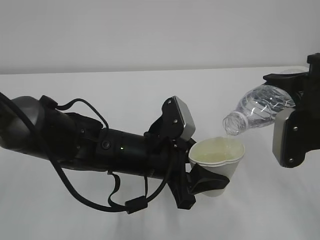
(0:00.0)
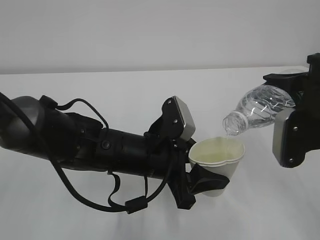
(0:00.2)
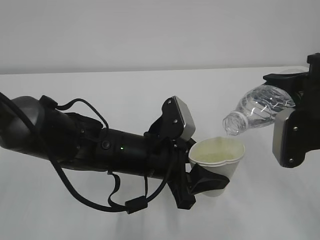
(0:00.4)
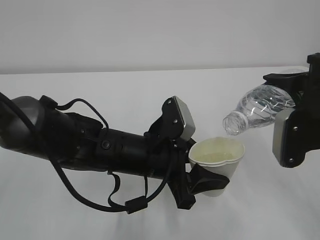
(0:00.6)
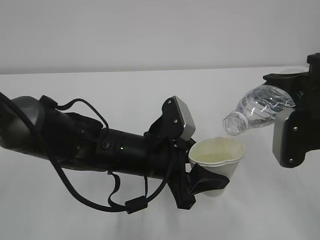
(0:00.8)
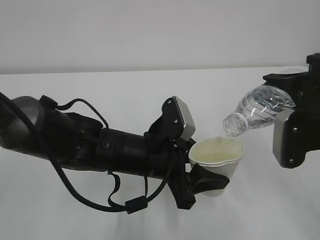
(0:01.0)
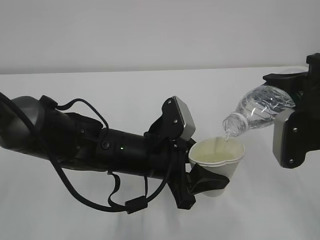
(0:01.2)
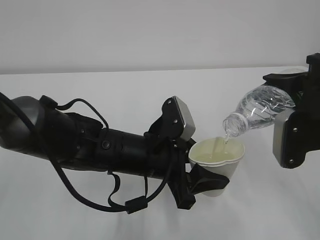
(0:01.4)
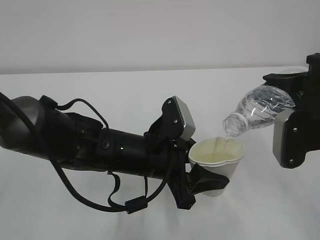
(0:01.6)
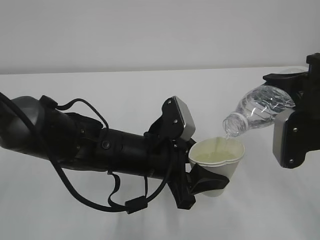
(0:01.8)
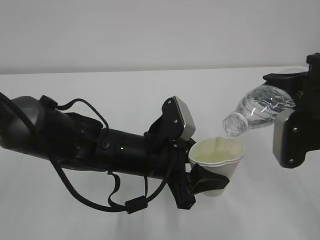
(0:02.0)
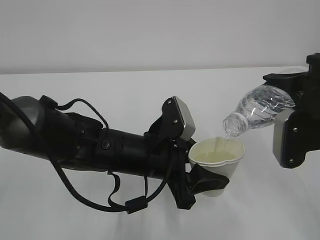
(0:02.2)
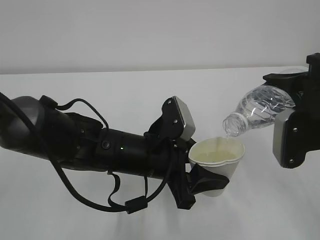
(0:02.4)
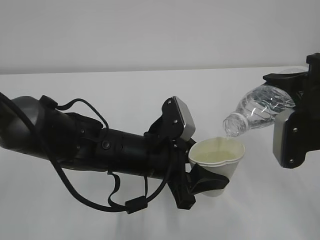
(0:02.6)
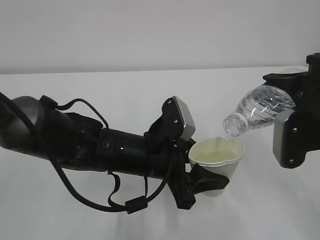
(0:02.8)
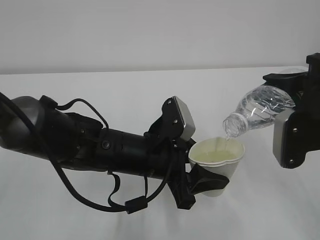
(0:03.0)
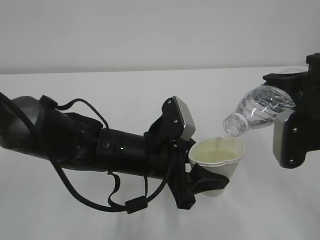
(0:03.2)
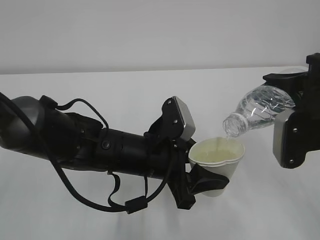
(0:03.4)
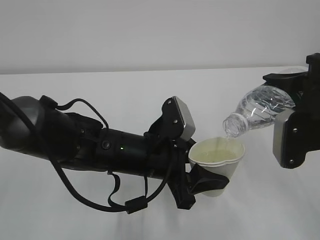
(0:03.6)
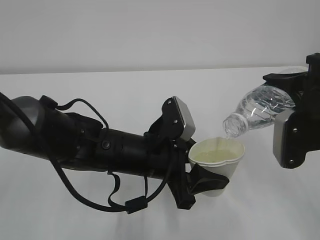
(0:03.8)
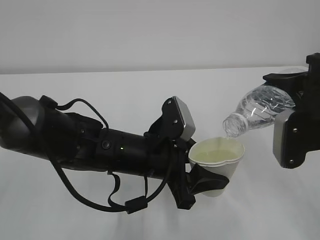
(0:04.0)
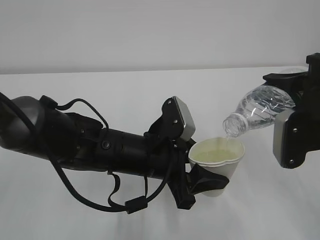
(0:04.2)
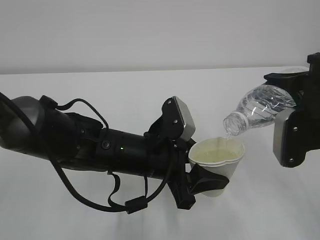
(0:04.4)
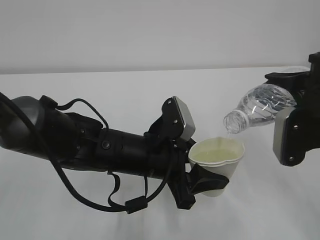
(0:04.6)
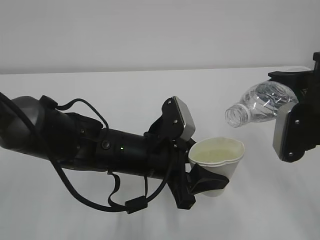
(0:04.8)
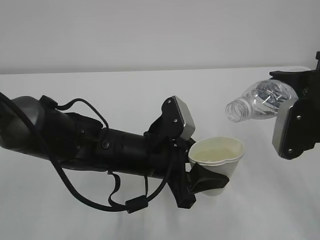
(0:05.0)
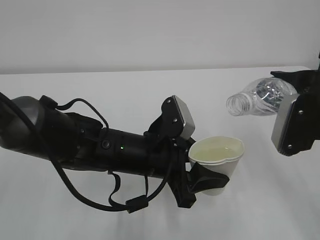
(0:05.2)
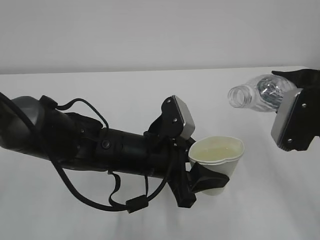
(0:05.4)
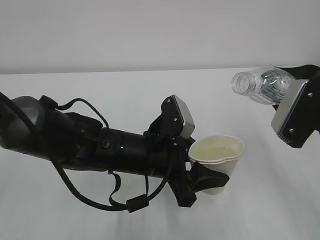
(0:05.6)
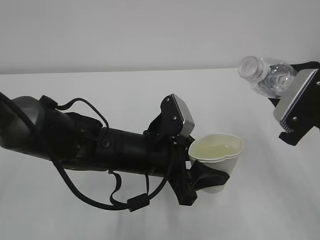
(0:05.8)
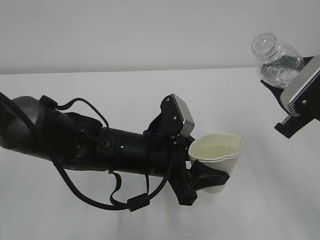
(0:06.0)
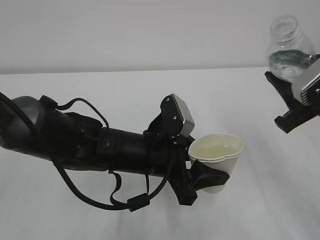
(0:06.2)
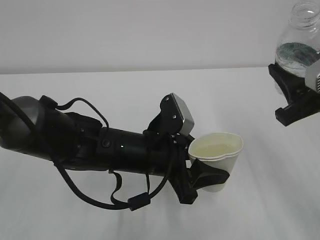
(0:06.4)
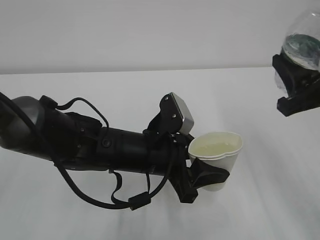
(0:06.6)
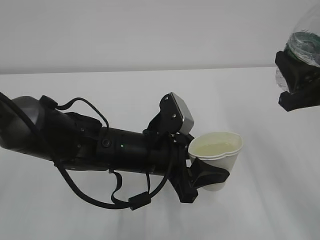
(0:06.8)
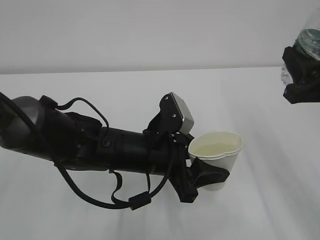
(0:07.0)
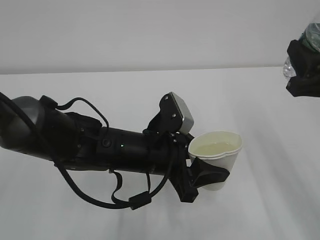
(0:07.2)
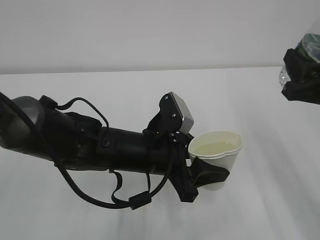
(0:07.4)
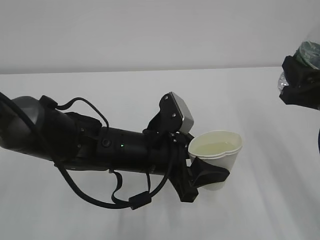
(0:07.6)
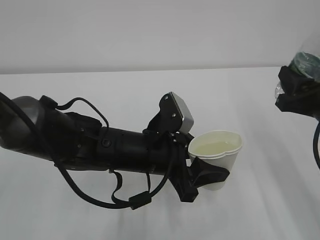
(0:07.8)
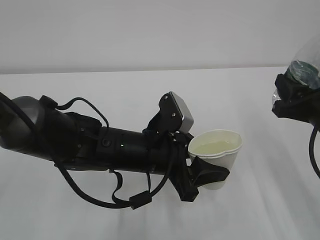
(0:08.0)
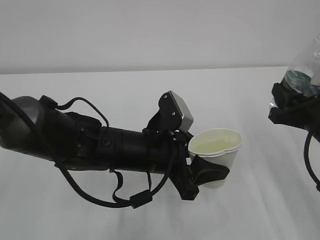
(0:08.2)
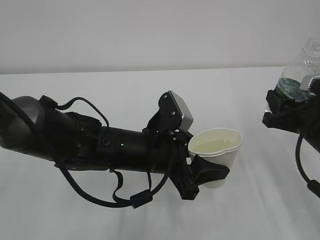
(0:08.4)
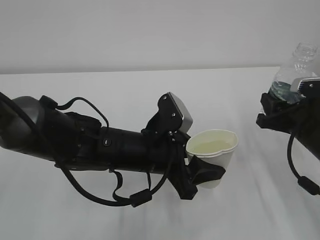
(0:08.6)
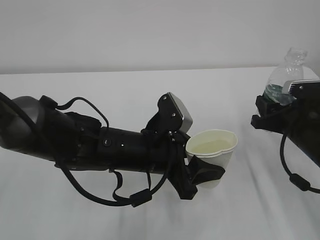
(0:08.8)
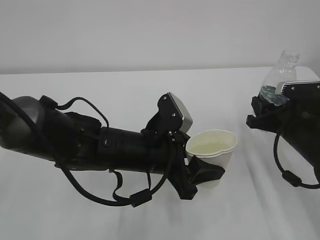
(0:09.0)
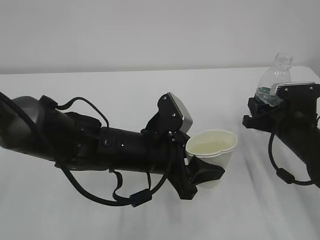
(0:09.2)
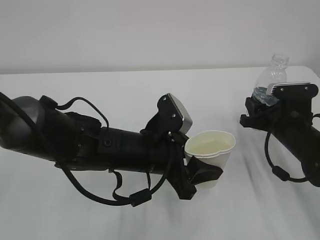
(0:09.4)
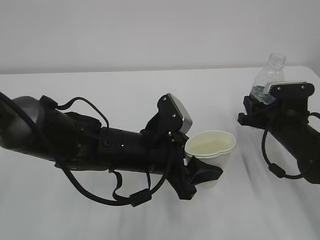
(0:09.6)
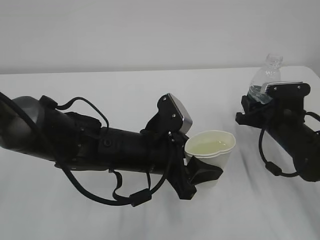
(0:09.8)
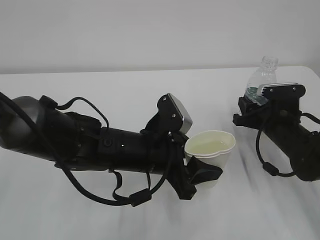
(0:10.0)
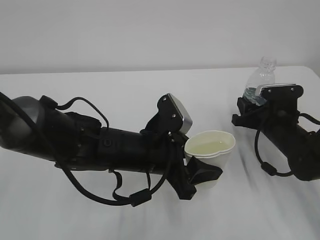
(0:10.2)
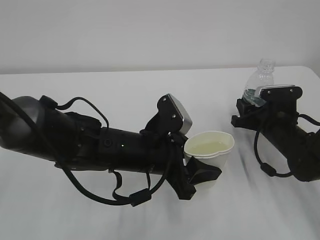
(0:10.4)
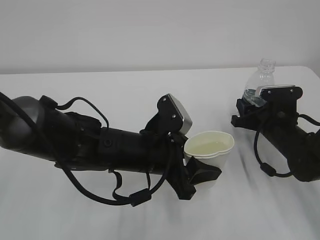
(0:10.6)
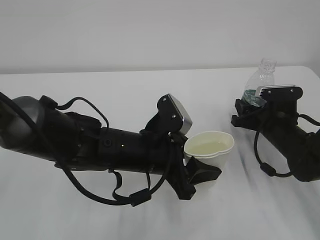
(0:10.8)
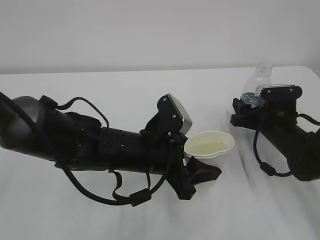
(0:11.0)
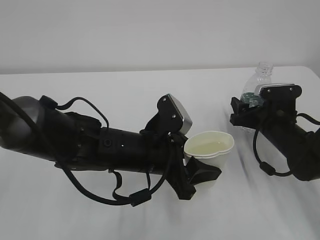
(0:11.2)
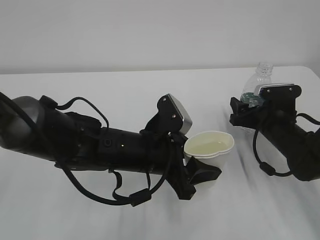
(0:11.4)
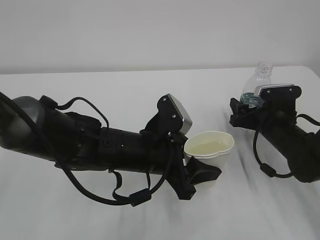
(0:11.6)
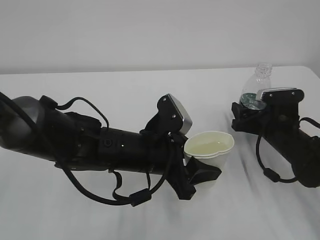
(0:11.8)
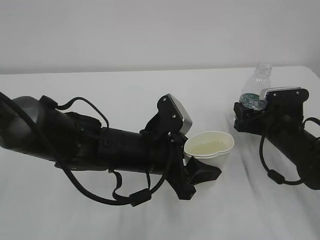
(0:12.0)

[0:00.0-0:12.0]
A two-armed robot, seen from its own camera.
0:00.0 to 0:04.4: Both grippers stay about where they are.
0:07.6 to 0:09.0: The right gripper heads downward and forward, covering some 10 cm.
0:09.0 to 0:10.4: The right gripper shifts by approximately 5 cm.
0:10.4 to 0:12.0: The right gripper opens its fingers.

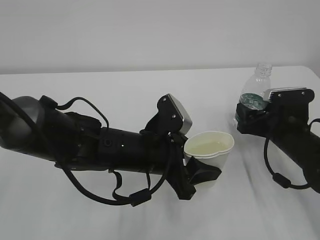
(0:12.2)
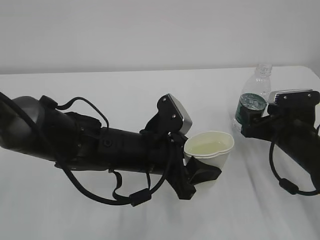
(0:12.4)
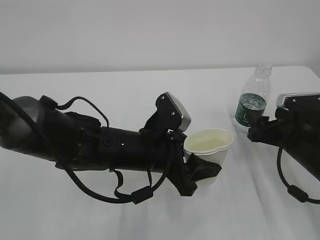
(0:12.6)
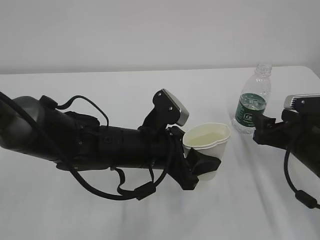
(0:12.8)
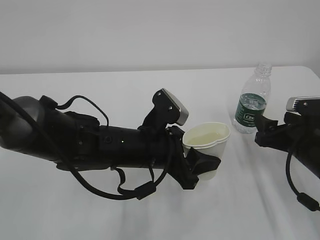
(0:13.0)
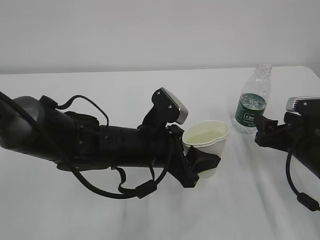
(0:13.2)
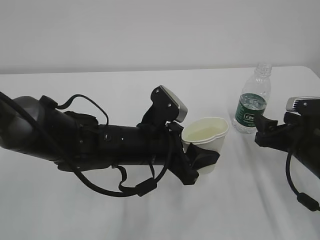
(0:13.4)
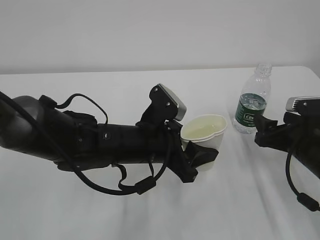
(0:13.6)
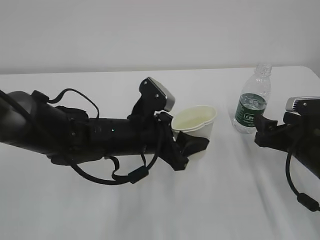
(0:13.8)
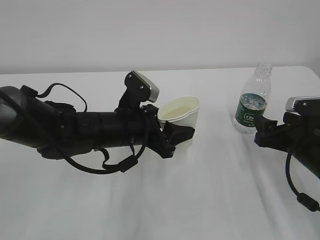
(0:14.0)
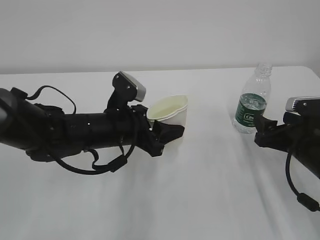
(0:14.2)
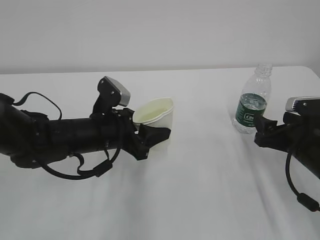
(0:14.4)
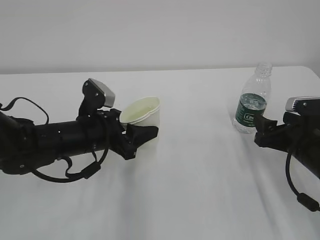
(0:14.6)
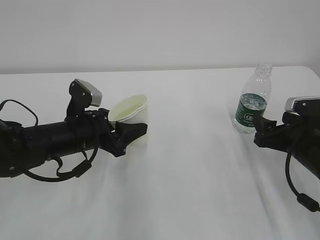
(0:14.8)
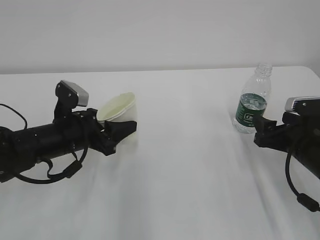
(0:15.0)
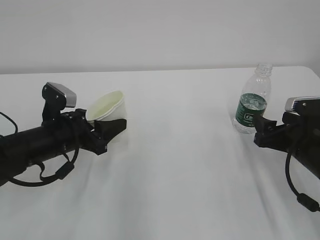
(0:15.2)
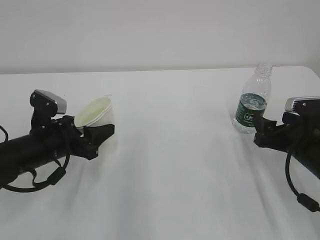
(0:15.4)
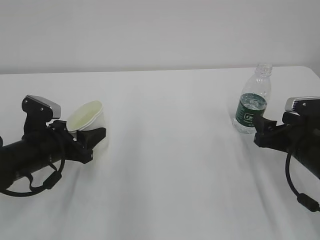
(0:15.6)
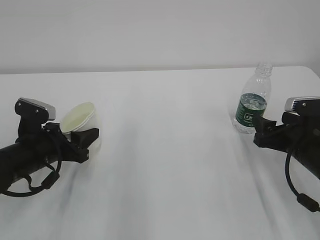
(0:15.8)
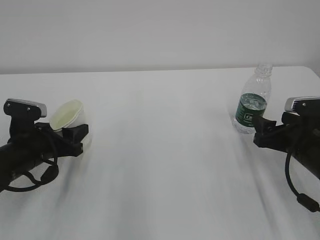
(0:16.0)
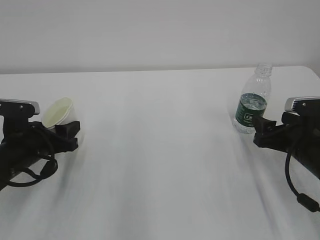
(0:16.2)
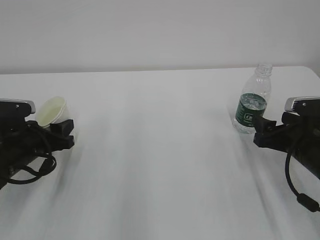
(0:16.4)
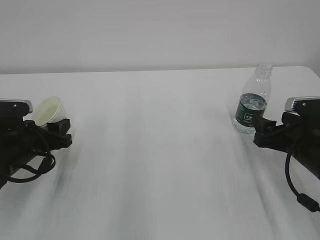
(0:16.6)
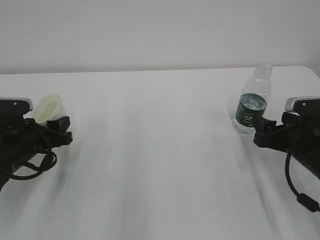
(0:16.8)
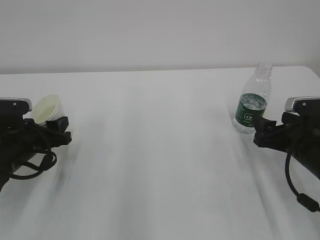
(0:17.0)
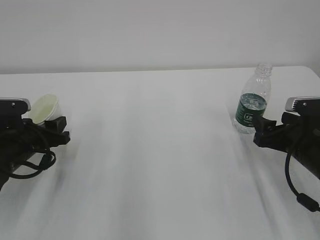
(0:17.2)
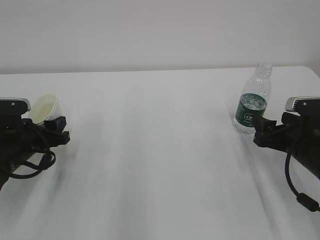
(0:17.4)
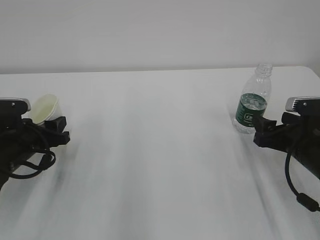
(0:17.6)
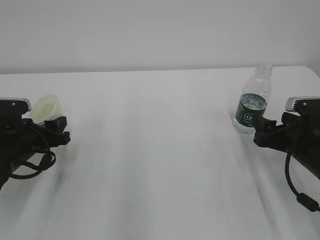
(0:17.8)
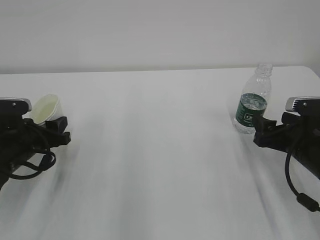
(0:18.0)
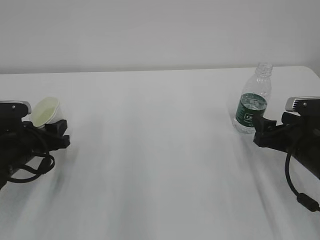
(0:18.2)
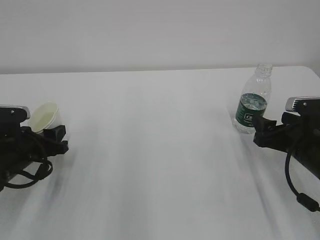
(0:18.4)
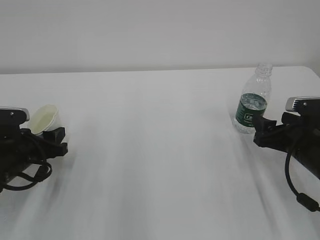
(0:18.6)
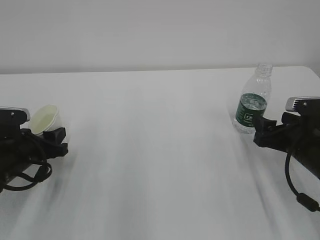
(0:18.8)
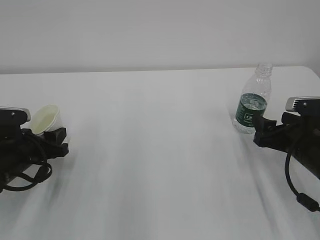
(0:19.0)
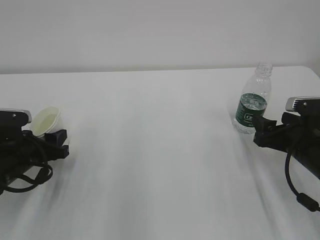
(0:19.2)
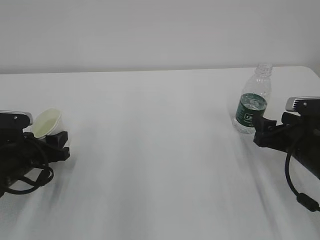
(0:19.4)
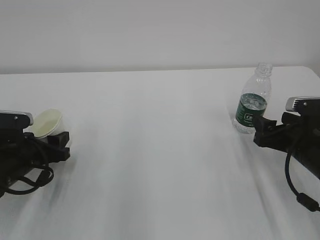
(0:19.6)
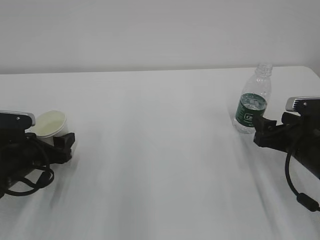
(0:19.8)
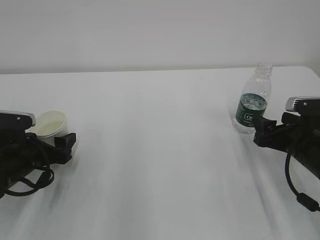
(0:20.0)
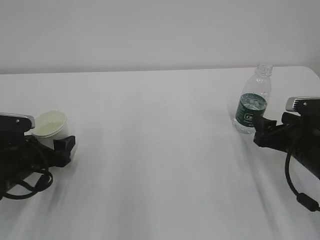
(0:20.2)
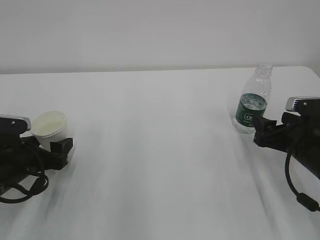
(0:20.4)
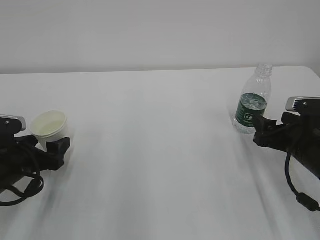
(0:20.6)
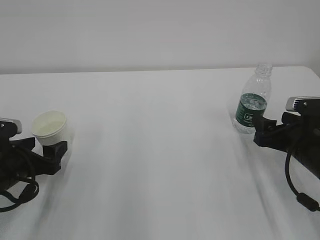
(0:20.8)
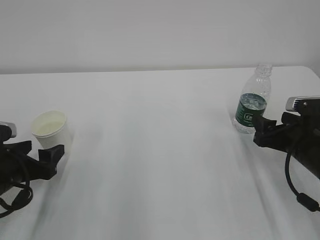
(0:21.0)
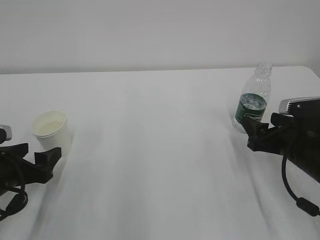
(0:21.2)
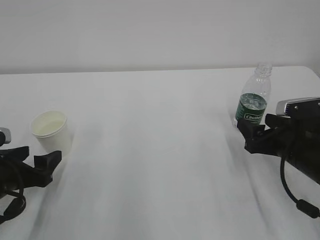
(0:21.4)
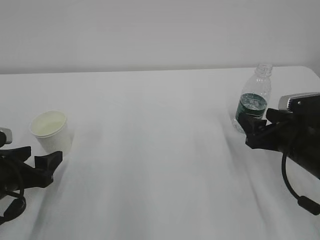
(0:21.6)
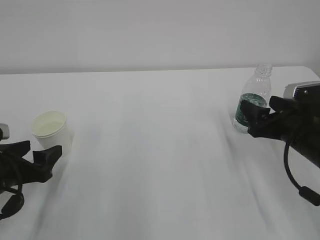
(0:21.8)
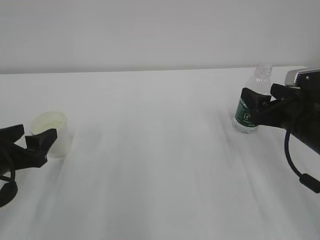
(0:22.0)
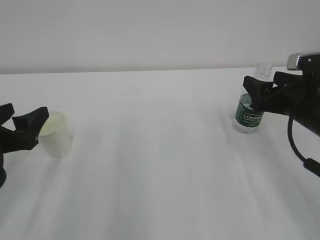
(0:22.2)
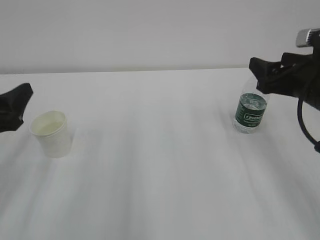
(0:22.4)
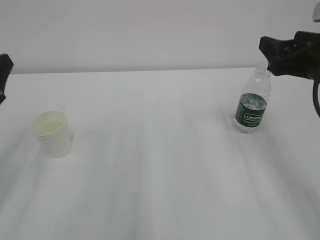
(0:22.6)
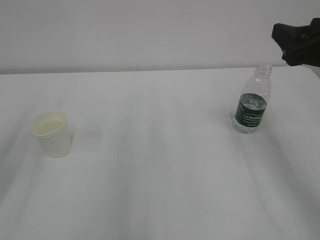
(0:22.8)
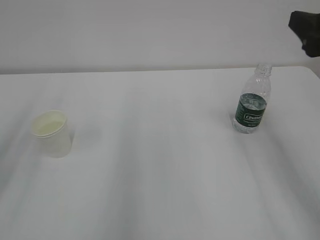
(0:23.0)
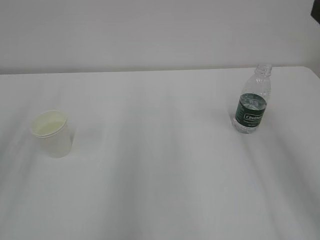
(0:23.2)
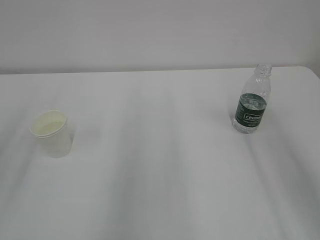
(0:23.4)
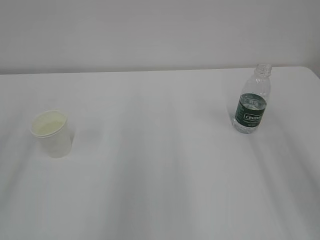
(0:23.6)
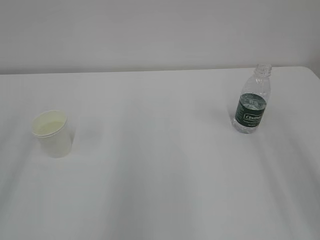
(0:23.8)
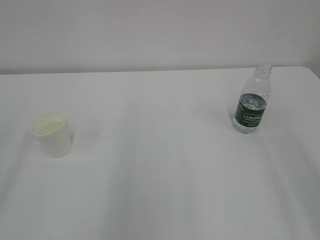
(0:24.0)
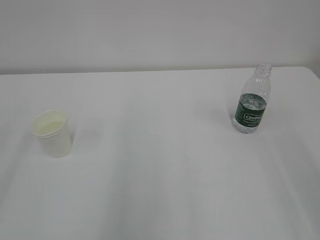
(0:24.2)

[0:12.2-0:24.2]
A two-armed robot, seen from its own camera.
0:12.2 to 0:13.8: The right gripper moves backward, roughly 5 cm.
0:13.8 to 0:15.2: The left gripper moves to the left, about 15 cm.
0:15.2 to 0:16.6: The left gripper shifts roughly 5 cm to the left.
0:16.6 to 0:18.2: Both grippers stay put.
0:18.2 to 0:19.8: The left gripper opens.
0:19.8 to 0:21.2: The left gripper moves backward, some 5 cm.
0:21.2 to 0:22.6: The two grippers go approximately 15 cm upward.
0:22.6 to 0:24.2: The right gripper is displaced backward and upward by approximately 25 cm.
